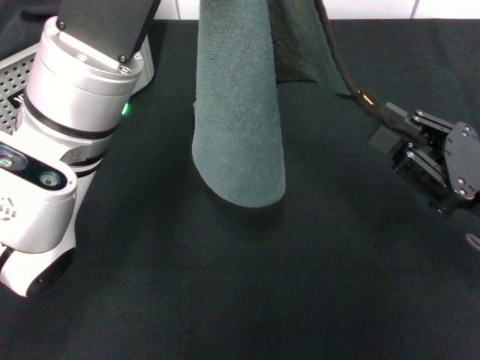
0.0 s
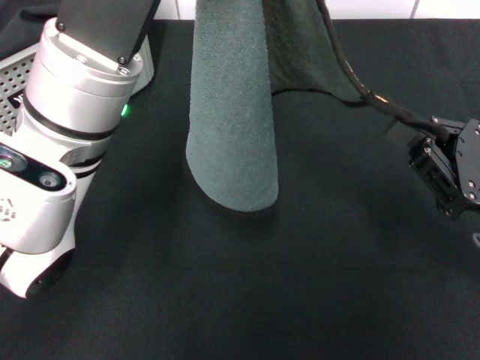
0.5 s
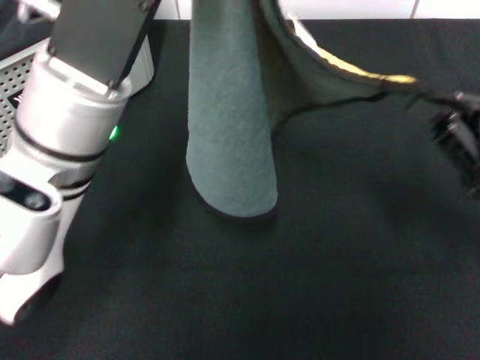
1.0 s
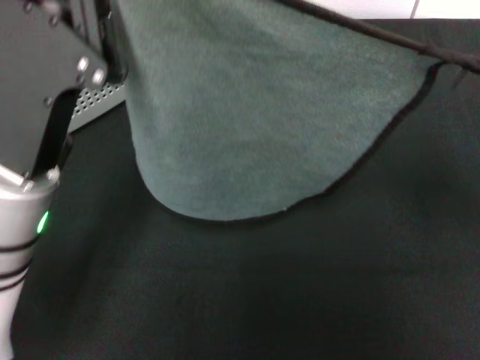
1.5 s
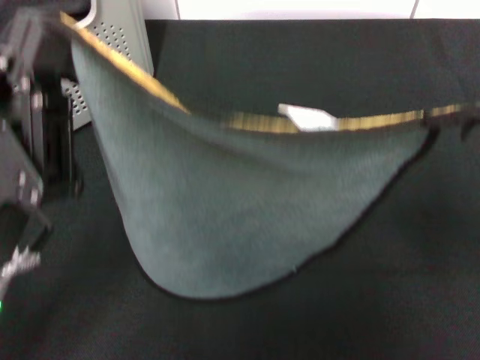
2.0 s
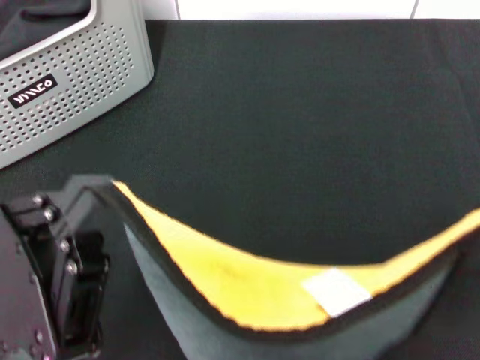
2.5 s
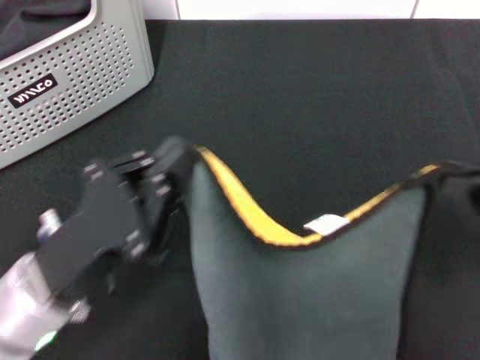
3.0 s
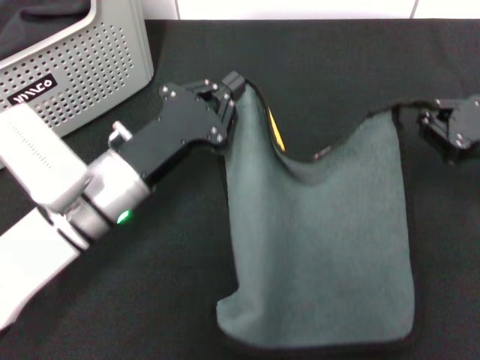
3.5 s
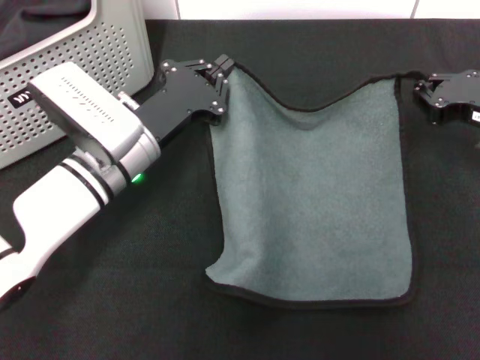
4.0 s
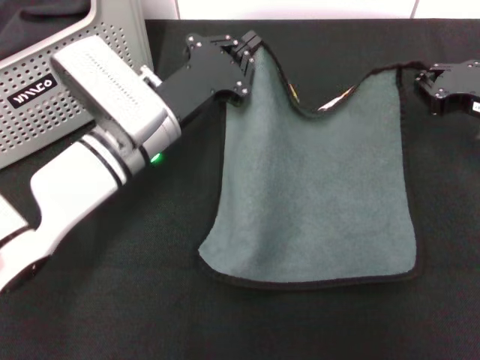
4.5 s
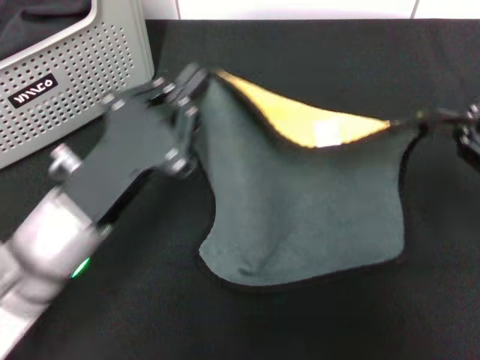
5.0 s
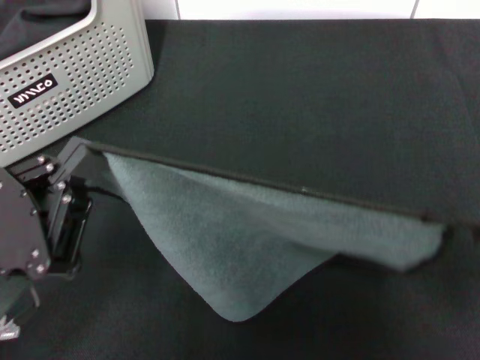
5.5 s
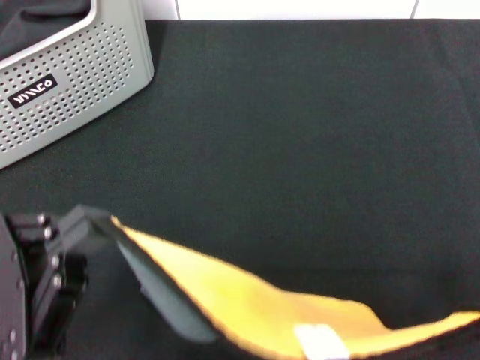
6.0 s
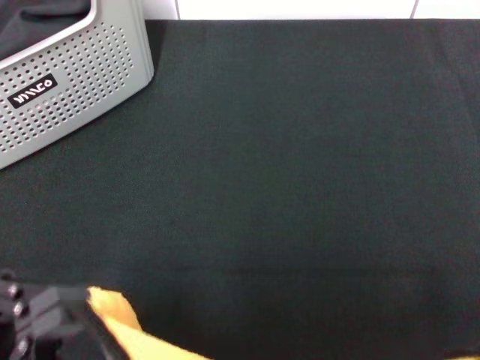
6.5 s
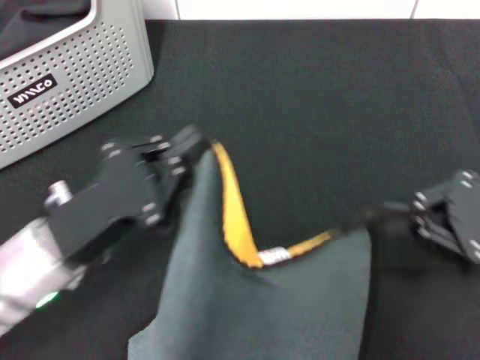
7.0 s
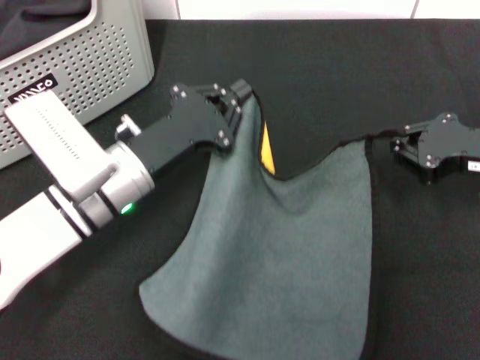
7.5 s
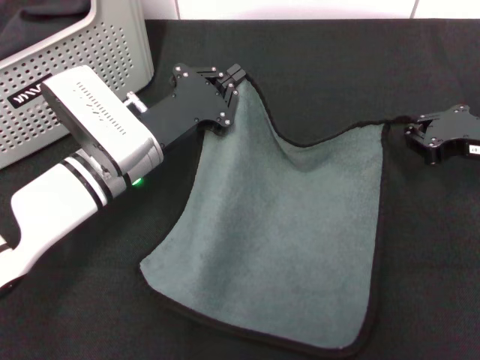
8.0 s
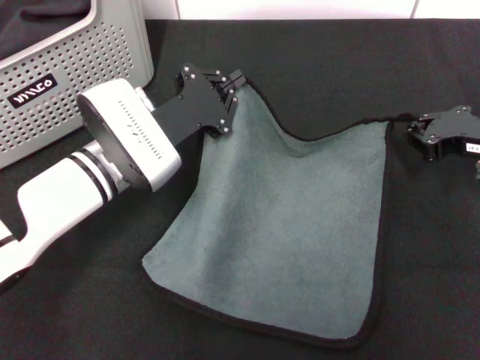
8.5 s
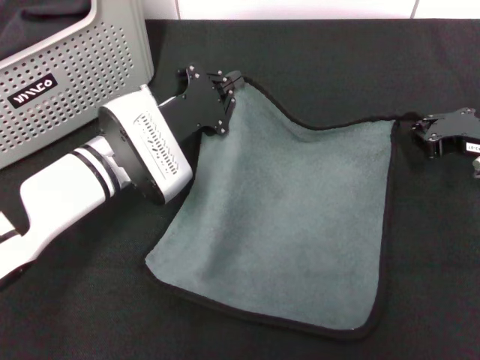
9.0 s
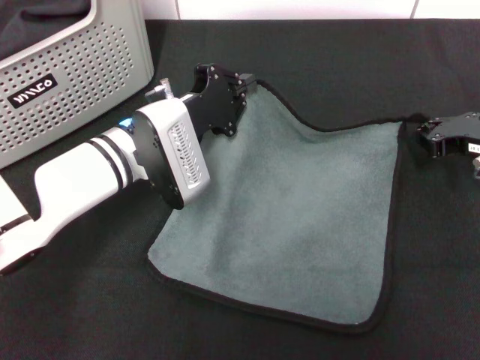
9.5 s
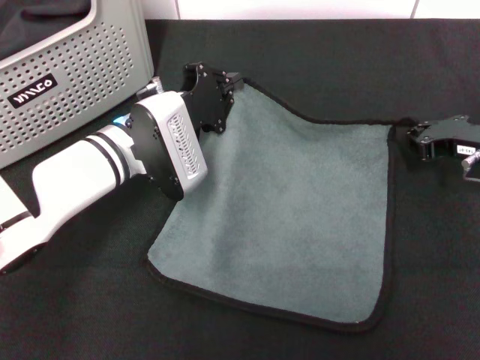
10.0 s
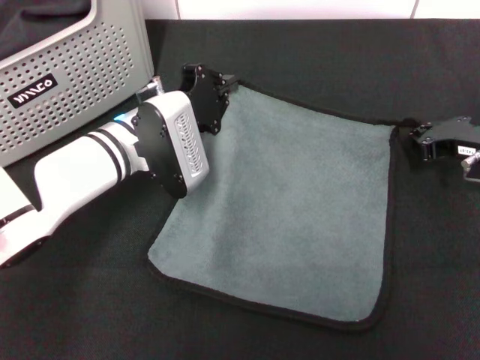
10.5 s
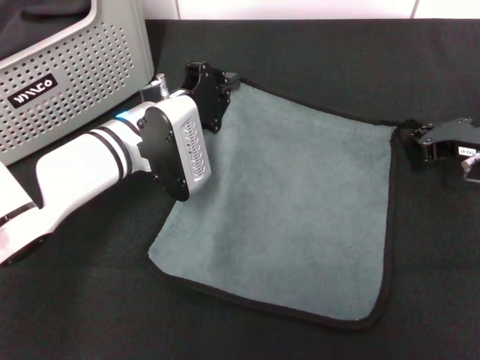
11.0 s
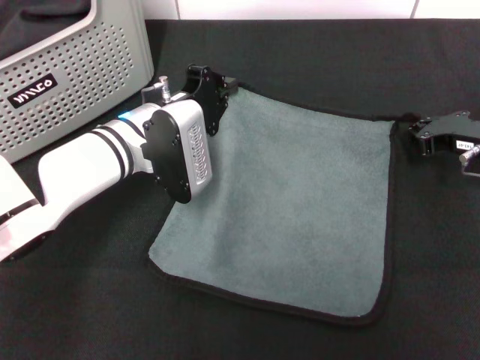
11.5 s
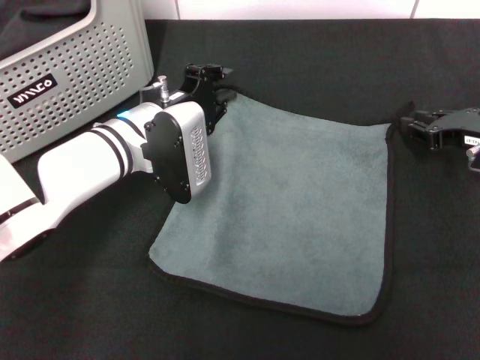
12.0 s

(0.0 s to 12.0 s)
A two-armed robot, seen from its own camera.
Task of the whole recording: pick up the towel from the storage box and lay it flat on the black tablecloth.
Step, 0.0 s - 11.5 s: Spread the towel flat with the right gripper.
0.0 s - 2.0 s: The left gripper goes approximately 15 cm backward, to the left and downward, while the right gripper goes roughly 10 cm upward and to the right.
2.0 s - 4.0 s: Both grippers move forward and downward, approximately 15 cm.
4.0 s - 6.0 s: The right gripper travels backward and upward by some 20 cm. The left gripper heads backward and to the left, covering approximately 20 cm.
6.0 s - 8.0 s: The left gripper heads forward and to the right, covering approximately 20 cm. The right gripper is displaced forward and downward by roughly 20 cm.
10.0 s - 12.0 s: The grippers stay close to where they were, moving slightly.

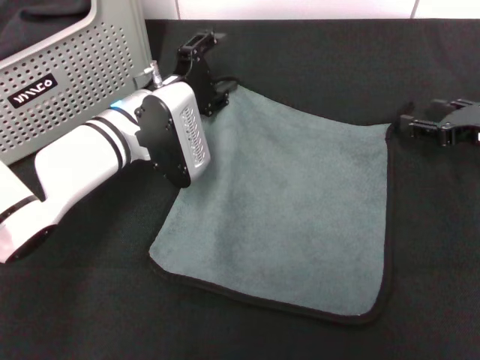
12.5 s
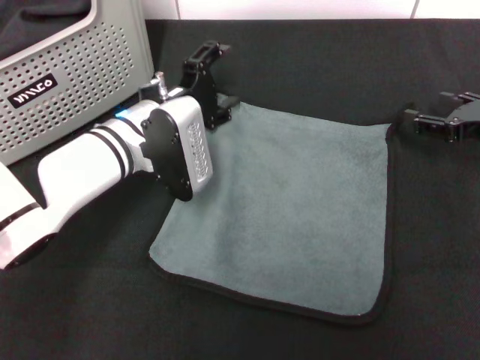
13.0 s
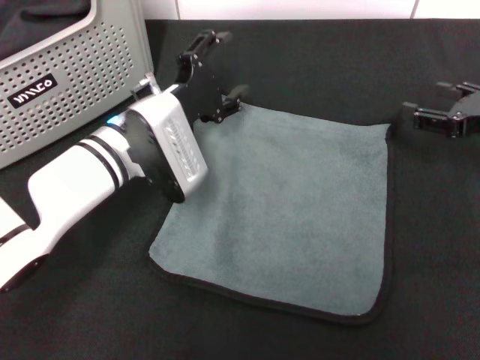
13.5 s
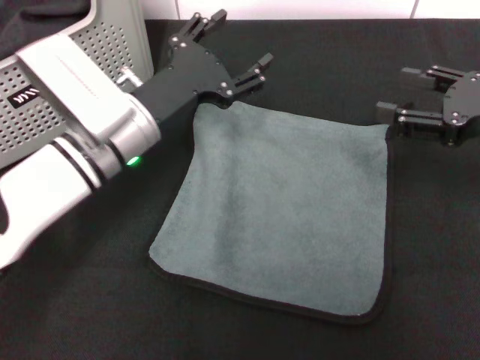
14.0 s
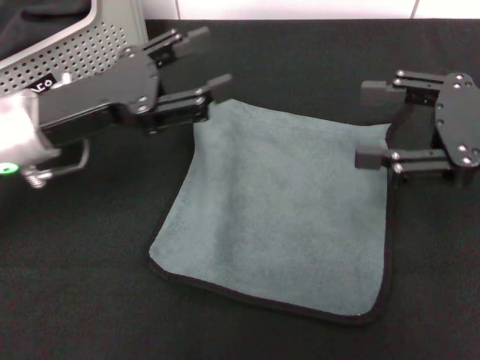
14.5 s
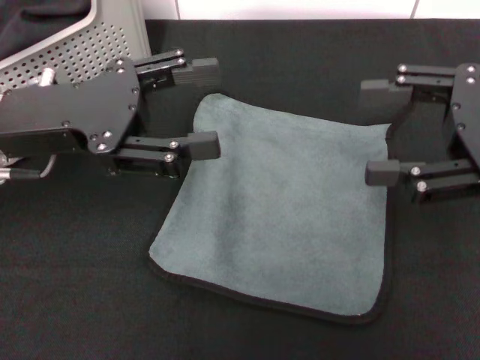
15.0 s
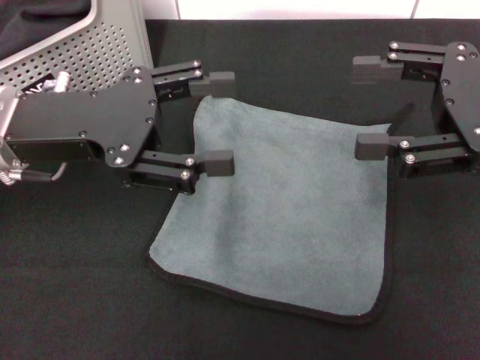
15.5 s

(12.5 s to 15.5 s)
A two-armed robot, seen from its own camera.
Task of the whole recording: pick up the towel from the storage box and lay it flat on the black tablecloth.
12.5 s - 14.0 s: The right gripper is displaced upward by approximately 5 cm.
14.0 s - 15.5 s: The left gripper moves upward and to the left, some 10 cm. Meanwhile the right gripper heads upward, covering about 5 cm.
